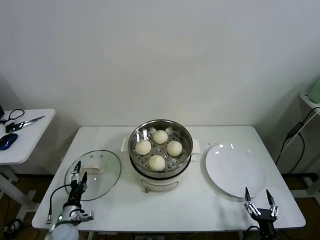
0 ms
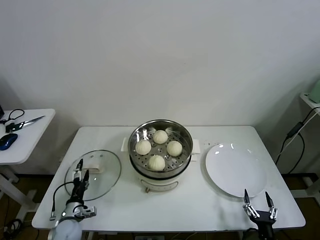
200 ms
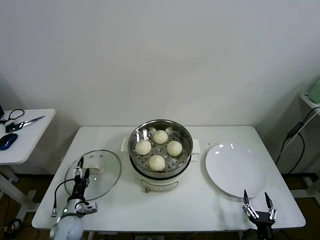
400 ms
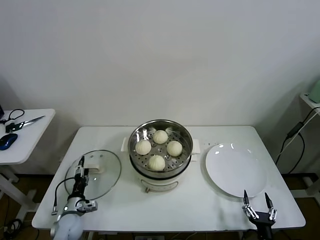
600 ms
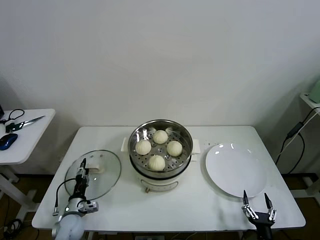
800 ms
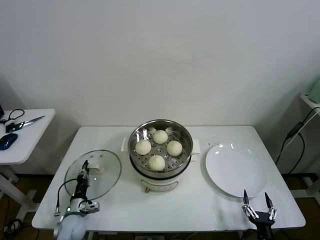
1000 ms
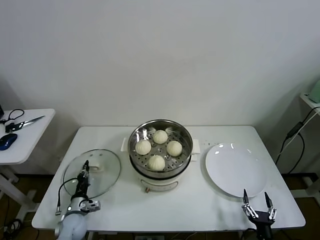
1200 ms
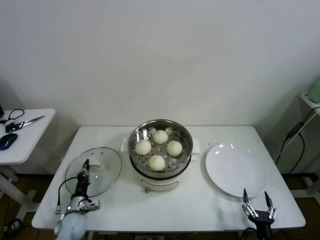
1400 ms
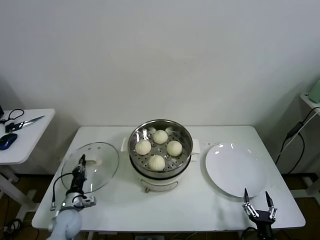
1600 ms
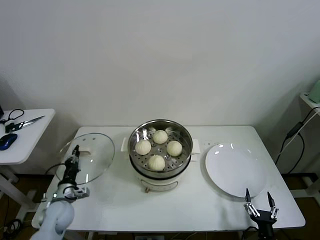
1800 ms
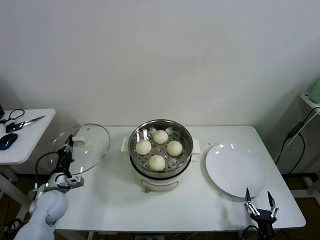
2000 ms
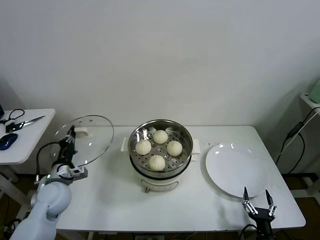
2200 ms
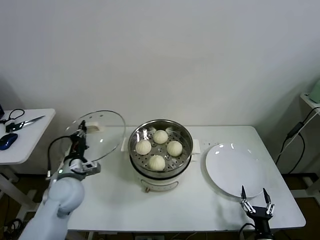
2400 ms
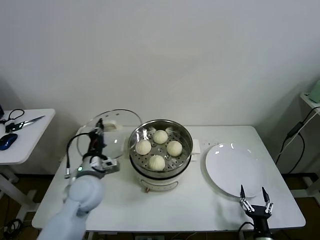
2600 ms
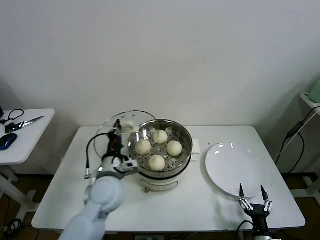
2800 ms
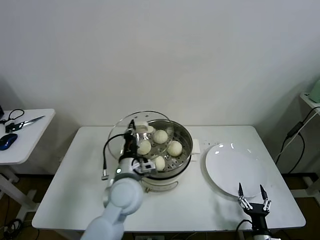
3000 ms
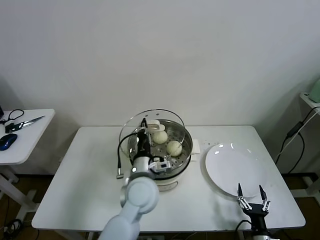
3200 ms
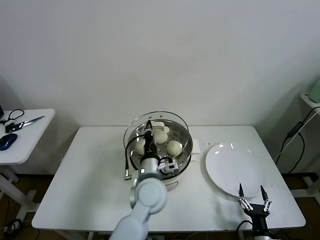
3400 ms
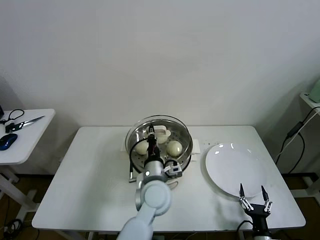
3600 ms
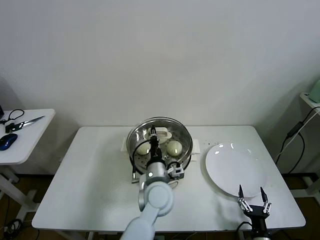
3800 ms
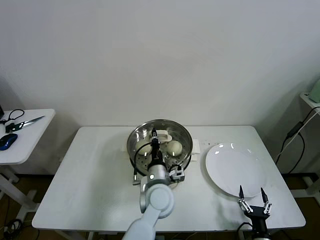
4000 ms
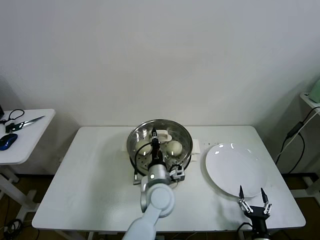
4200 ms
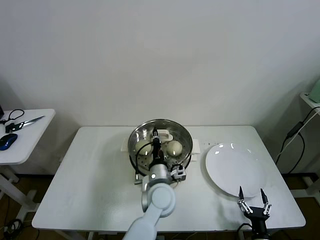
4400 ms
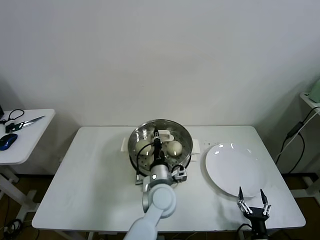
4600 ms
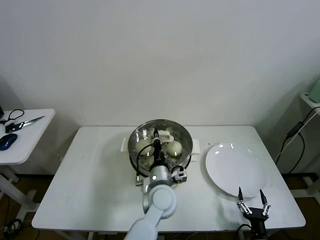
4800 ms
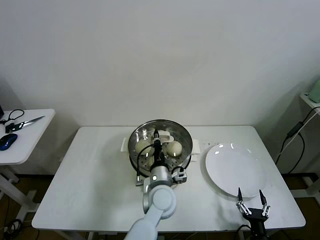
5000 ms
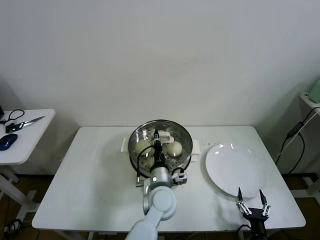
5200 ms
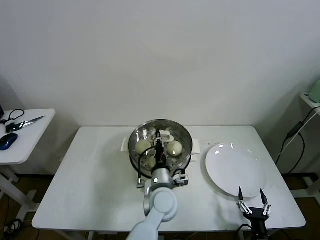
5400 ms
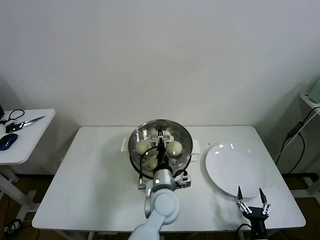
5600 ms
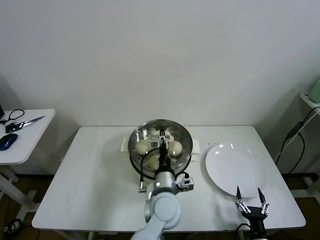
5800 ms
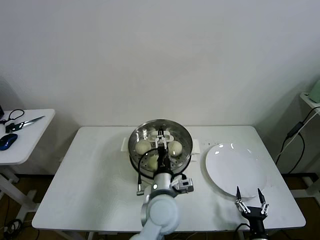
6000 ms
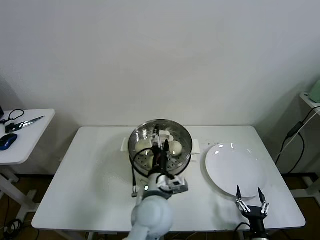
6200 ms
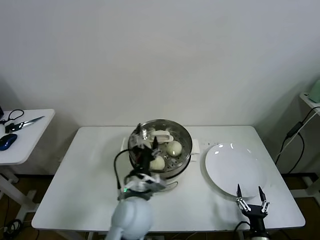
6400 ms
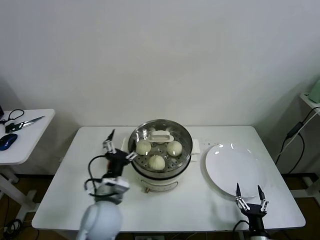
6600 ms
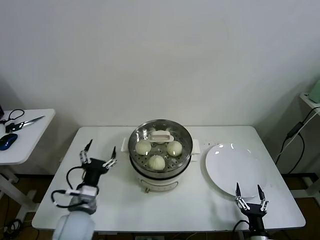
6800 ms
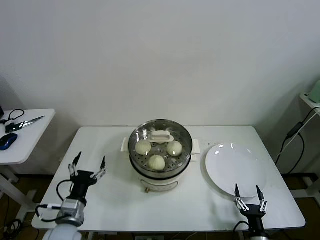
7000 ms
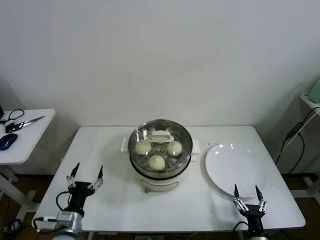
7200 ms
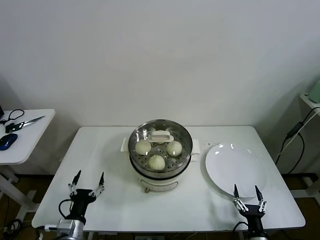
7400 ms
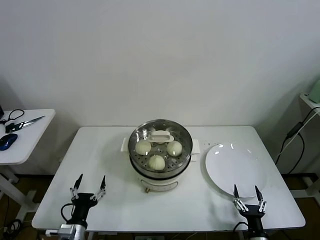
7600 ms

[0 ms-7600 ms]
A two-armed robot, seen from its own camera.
Task of the whole recording: take steamed baozi put them in steamer then cover it.
Step, 1400 ms to 5400 ms: Place the pot lid on the steamer with left gripper.
0 ms to 1600 ms: The left gripper goes about 5 cm forward, and closes its fingers.
1600 ms to 3000 ms: The left gripper moves upward and to the right, about 30 cm.
3000 ms to 4600 ms: The left gripper heads to the right and downward, covering some 15 cm.
4600 ms to 6000 ms: The left gripper opens up.
6000 ms to 7600 ms: The left gripper goes approximately 30 cm to the left and downward.

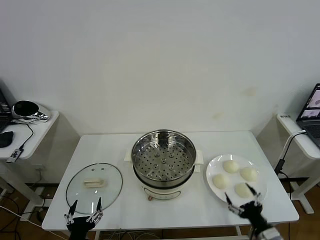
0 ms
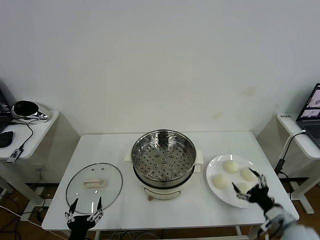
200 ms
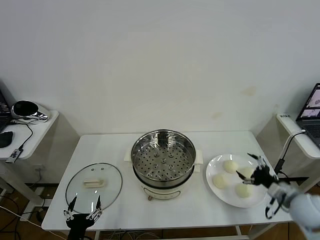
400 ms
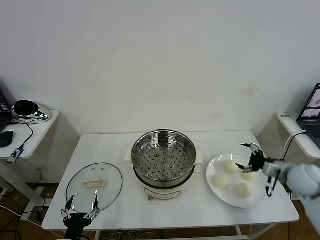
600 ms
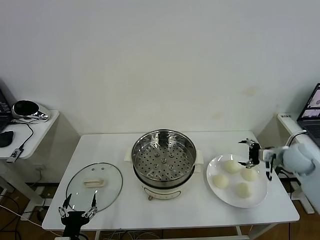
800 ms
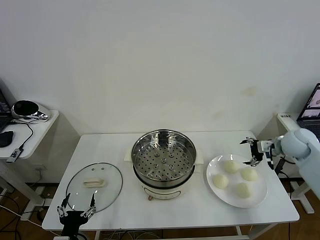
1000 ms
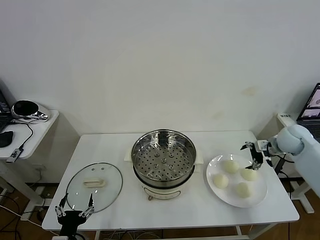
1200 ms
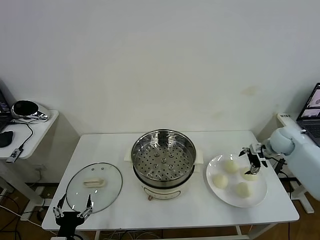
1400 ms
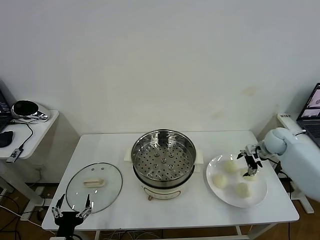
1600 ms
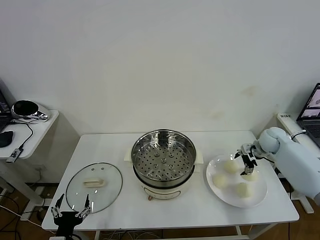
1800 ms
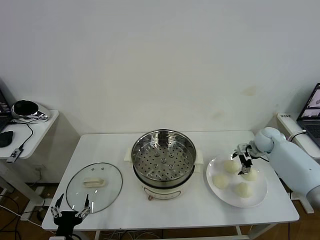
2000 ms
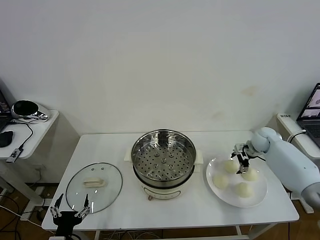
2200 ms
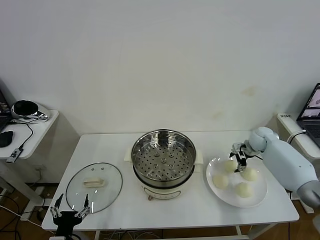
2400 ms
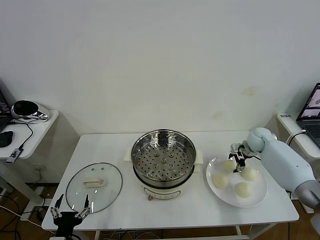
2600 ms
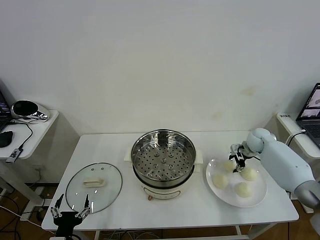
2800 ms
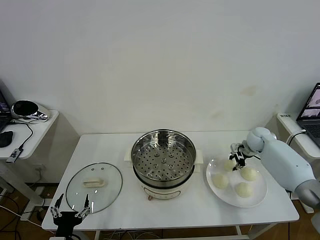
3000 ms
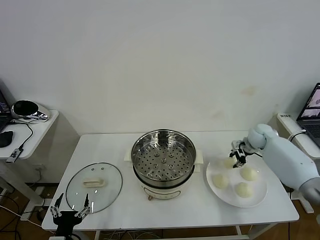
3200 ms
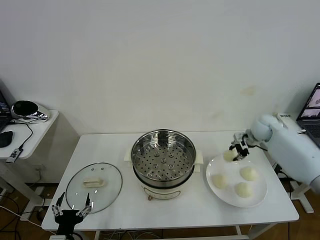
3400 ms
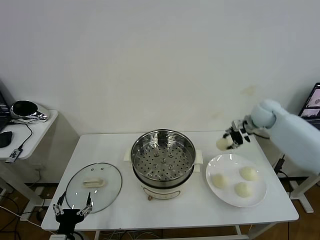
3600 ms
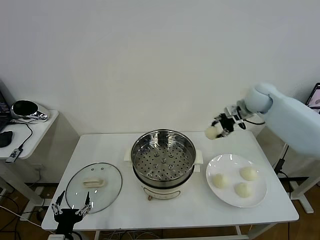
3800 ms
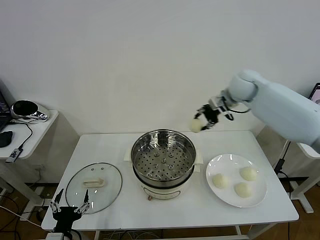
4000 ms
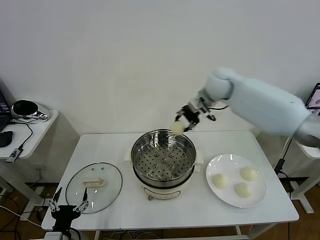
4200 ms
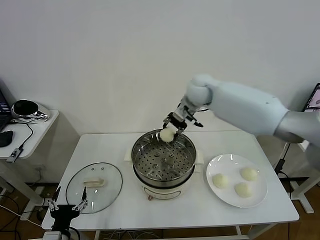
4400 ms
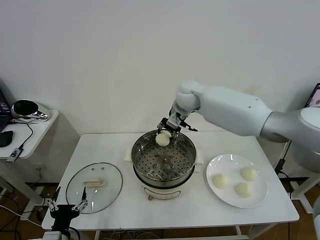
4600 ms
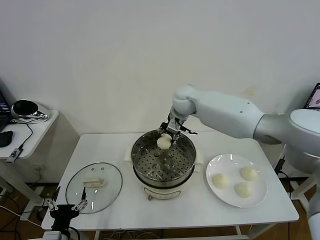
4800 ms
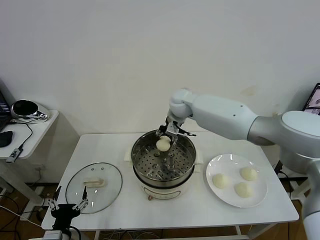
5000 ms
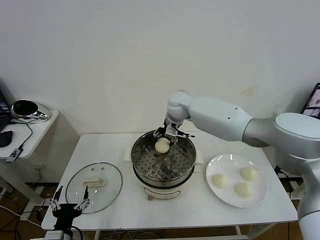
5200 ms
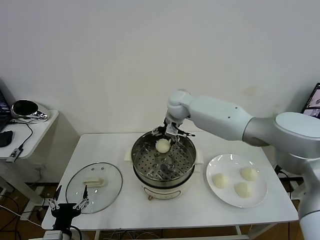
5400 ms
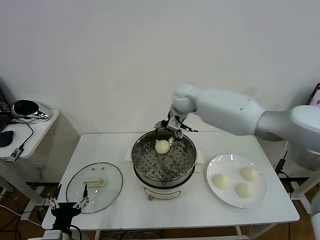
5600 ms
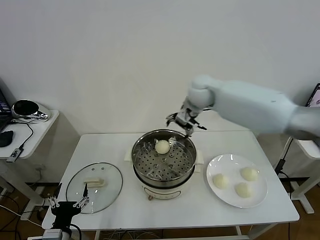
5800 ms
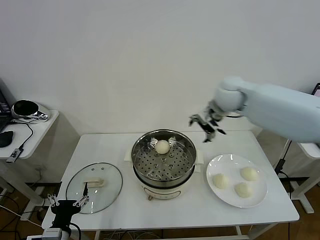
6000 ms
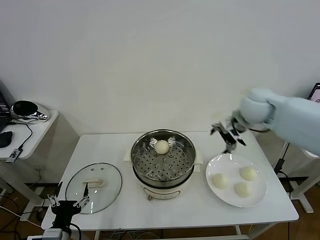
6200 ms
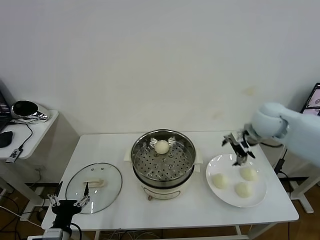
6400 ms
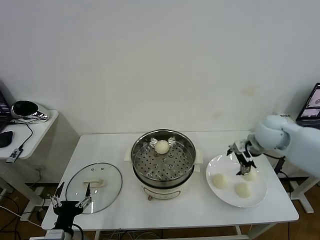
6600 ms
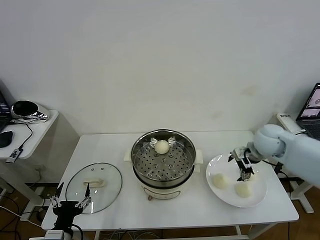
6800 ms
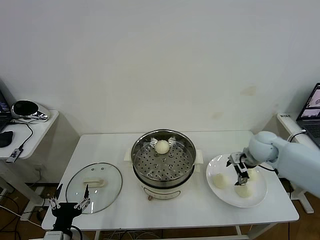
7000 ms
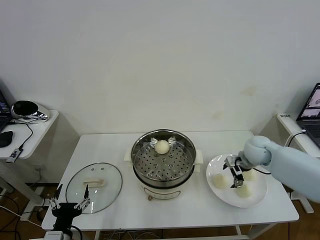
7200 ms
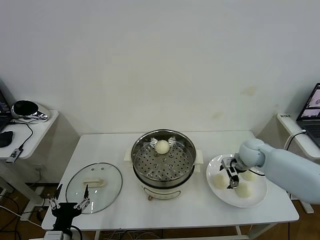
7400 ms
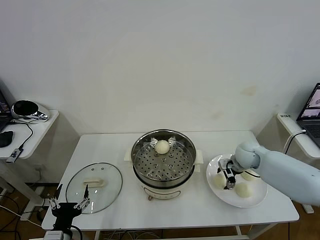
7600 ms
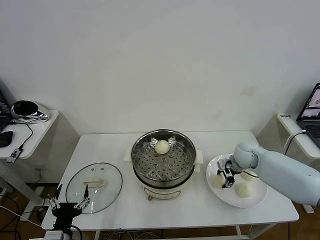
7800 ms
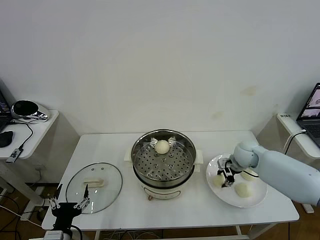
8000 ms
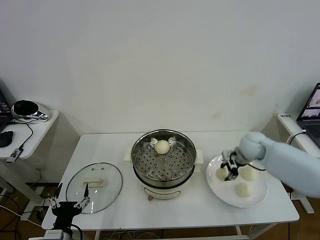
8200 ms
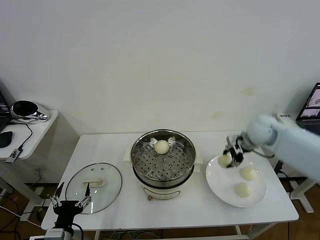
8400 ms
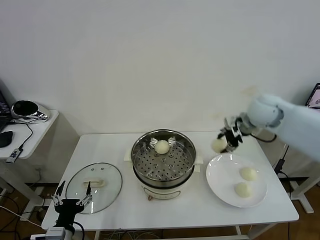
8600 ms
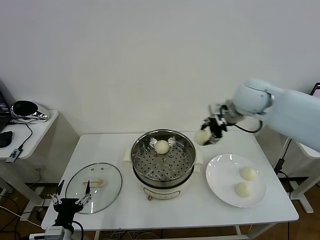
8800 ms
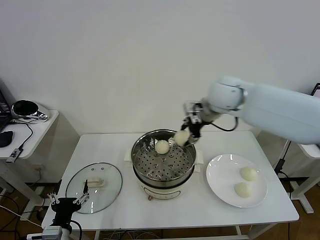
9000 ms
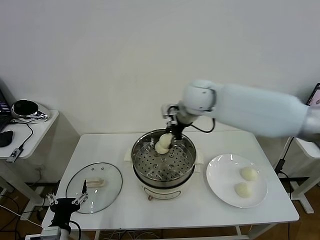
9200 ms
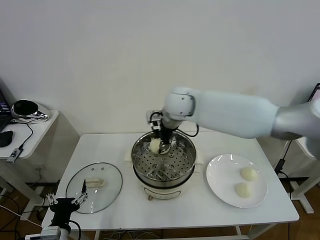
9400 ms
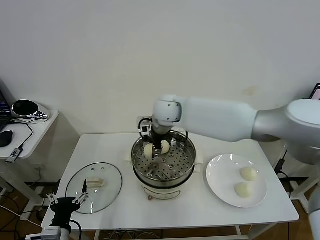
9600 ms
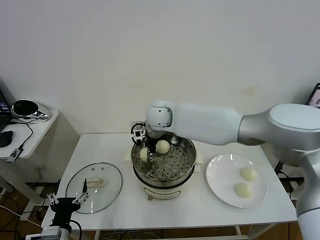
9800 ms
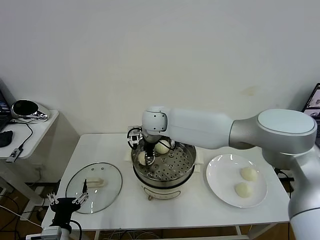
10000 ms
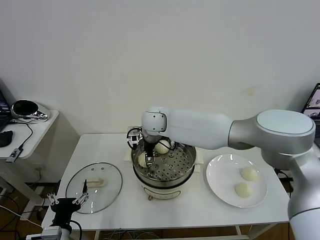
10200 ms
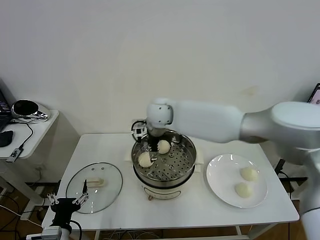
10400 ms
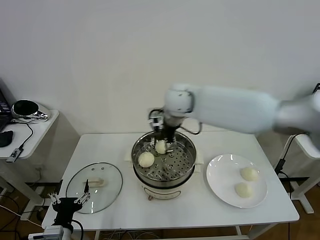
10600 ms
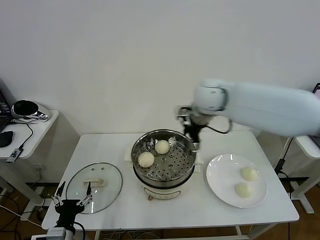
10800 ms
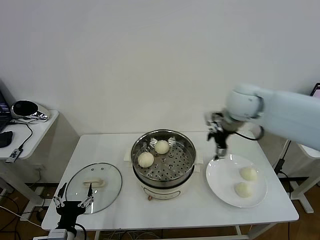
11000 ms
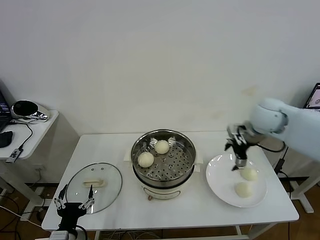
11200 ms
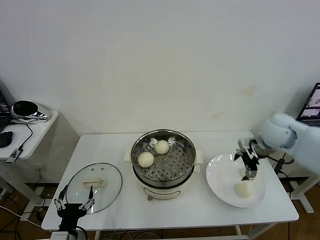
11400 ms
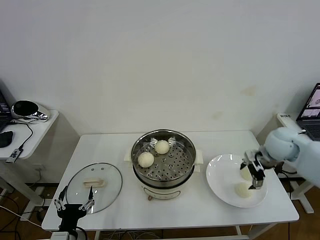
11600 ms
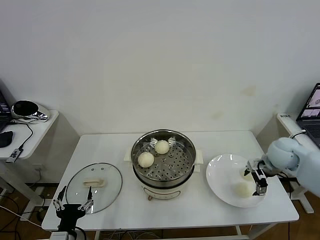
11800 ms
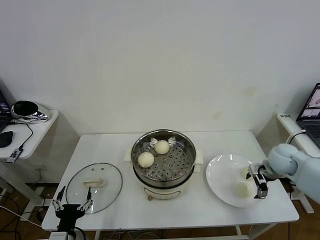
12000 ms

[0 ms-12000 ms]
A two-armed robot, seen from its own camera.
Task of the whole recording: take steamed baozi put them in steamer then cover it.
Step, 0 ms to 2800 ms: Grasp the baozi in the plate with right gripper.
Step, 3000 ms to 5400 ms: Place the baozi on the steamer with right gripper.
Step, 5600 ms to 7800 ms: Grasp the baozi in the plate with right gripper.
Step, 8200 ms to 10200 ms: Place the baozi on the steamer with right gripper.
1600 ms to 3000 ms: The right gripper changes place by roughly 5 cm, and closes its fingers.
3000 ms to 4400 ms: The right gripper heads to the left and upward, covering about 35 cm.
4400 ms to 6000 ms: The right gripper heads to the right and backward, covering about 15 cm, and opens.
6000 ms to 7600 ms: The right gripper goes about 25 cm downward, and closes.
7600 ms to 9000 ms: The right gripper goes approximately 30 cm upward and to the left, and closes its fingers.
9000 ms to 10400 ms: The right gripper heads to the left and downward, covering approximately 15 cm, and opens.
10400 ms to 12000 ms: The right gripper travels to the right by approximately 40 cm.

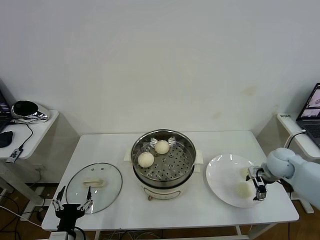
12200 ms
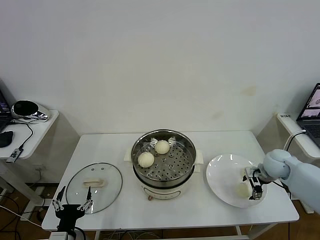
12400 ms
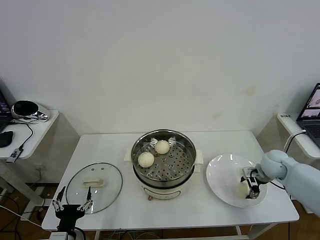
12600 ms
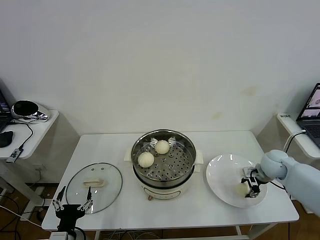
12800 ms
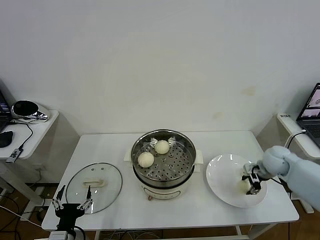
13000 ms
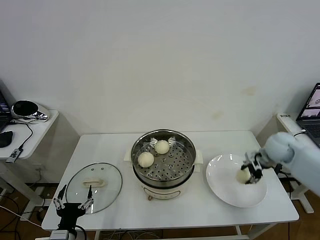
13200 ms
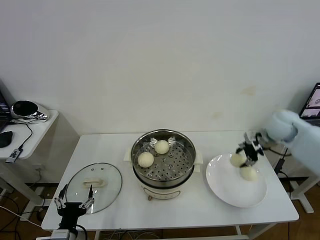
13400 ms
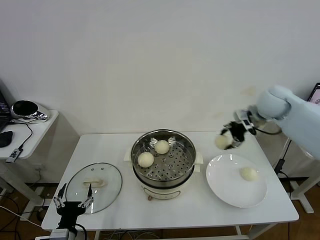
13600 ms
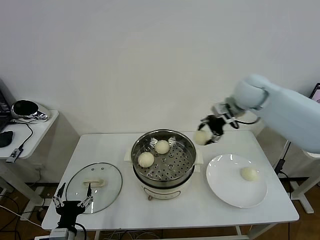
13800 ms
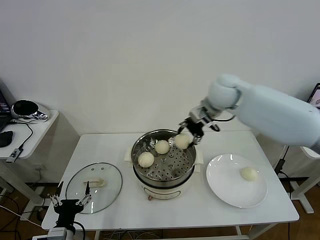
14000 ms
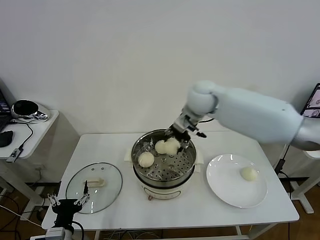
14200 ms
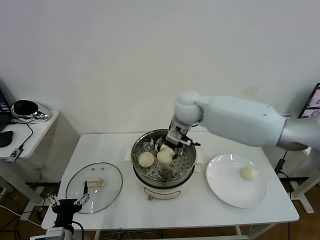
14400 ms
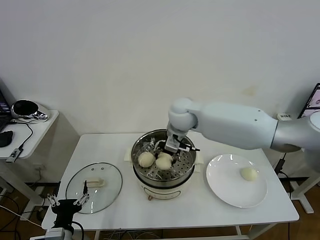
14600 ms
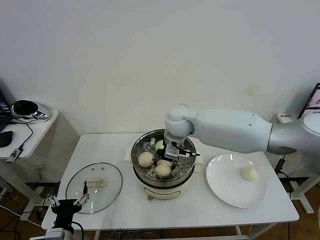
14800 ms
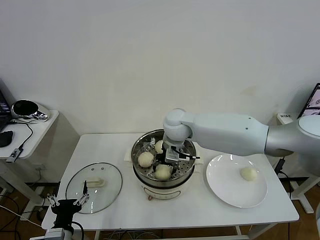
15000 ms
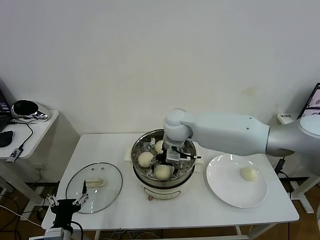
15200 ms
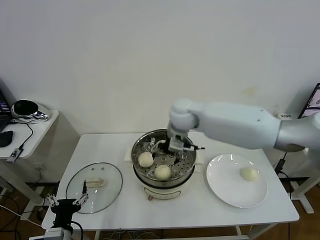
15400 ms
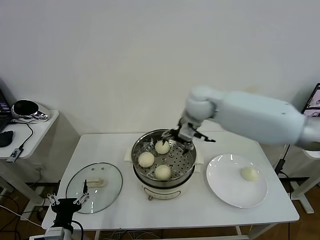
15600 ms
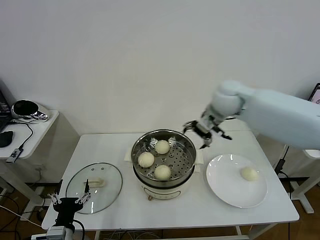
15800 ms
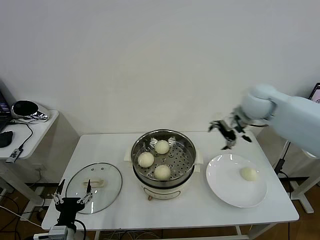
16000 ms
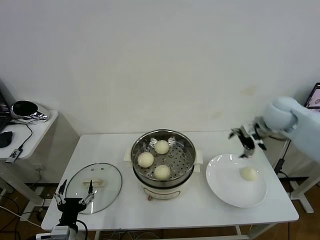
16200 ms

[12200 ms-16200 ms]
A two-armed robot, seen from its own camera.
Task of the whole recording: take steamed baozi put them in steamer then cover it.
Step, 13000 ms to 15200 ms: Place the baozi on the steamer with right gripper.
12200 ms to 13600 ms: The right gripper travels upward, to the left and forward by approximately 25 cm, and closes up.
13600 ms to 14800 ms: The right gripper moves to the left, approximately 25 cm.
14800 ms to 16200 ms: The right gripper is displaced to the right by roughly 30 cm, and opens.
